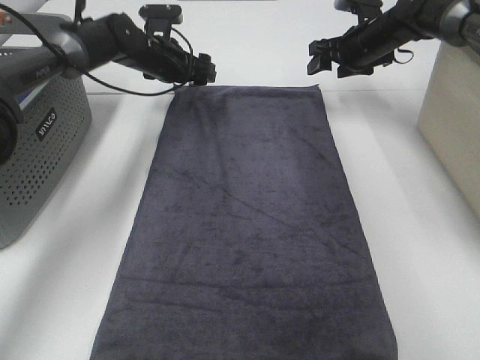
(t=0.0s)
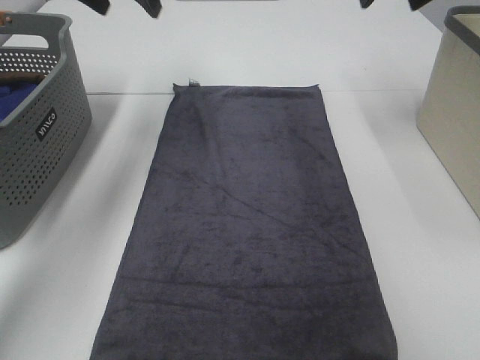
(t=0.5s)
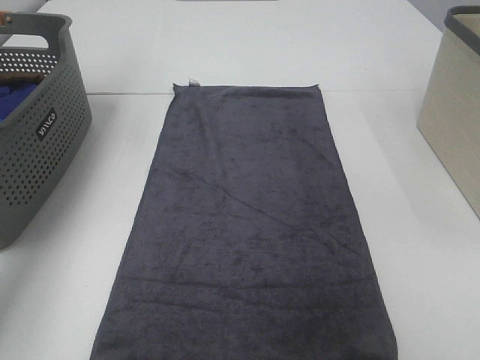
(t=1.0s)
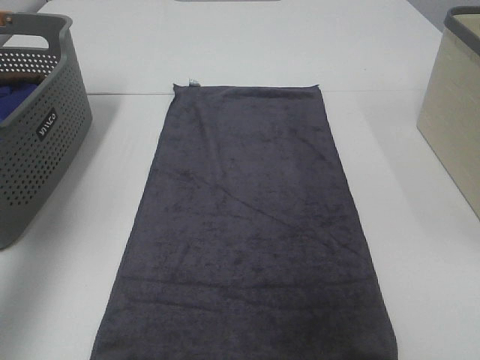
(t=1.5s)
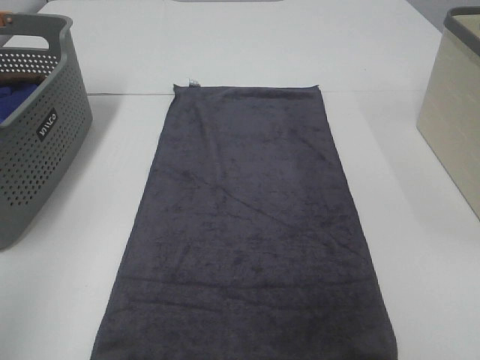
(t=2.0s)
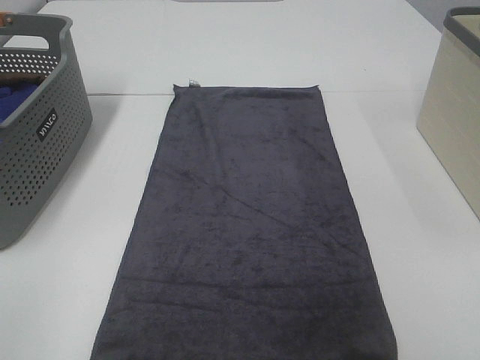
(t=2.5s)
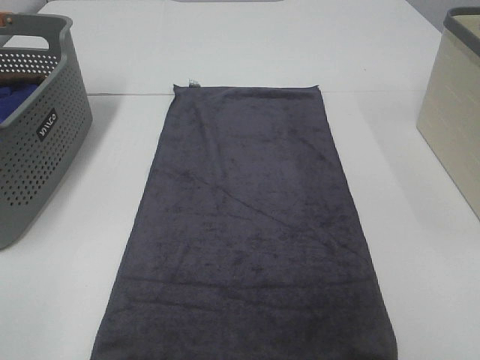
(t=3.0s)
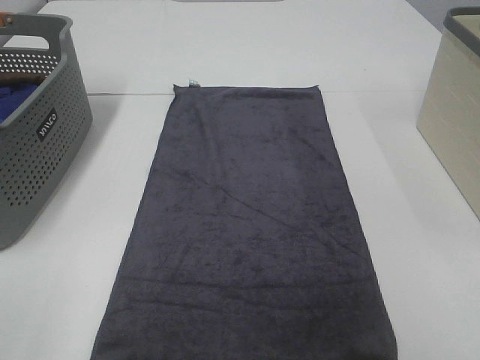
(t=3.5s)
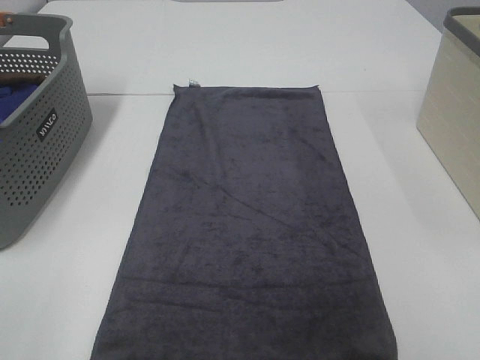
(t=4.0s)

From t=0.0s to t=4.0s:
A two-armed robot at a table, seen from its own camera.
Task of the whole recording: Remove the towel and place it.
From t=0.0s to t=2.0s: The right gripper is displaced backward by roughly 60 cm, while the left gripper moves backward and upward, some 60 cm.
From t=2.0s to t=4.0s: The left gripper shifts some 10 cm downward and backward.

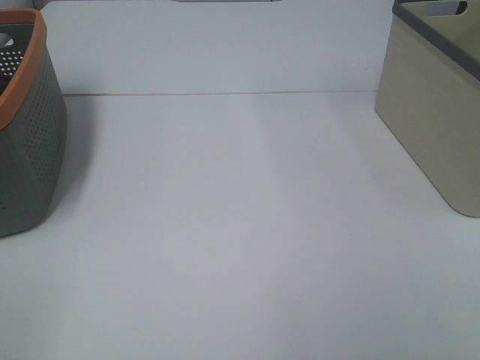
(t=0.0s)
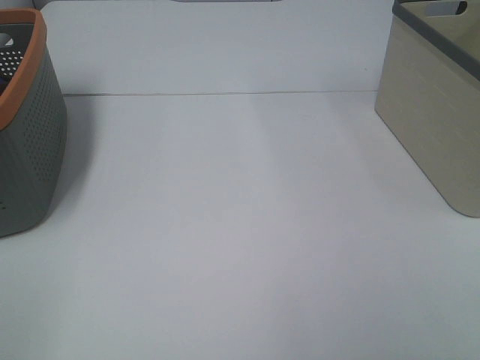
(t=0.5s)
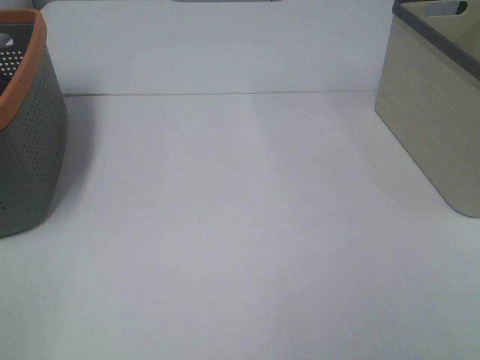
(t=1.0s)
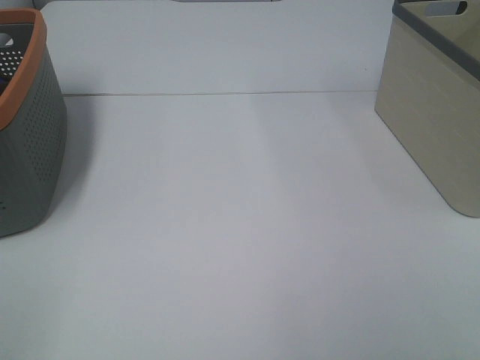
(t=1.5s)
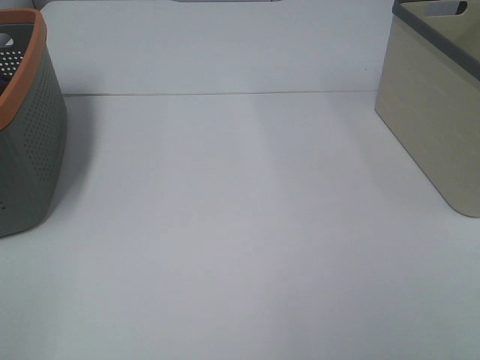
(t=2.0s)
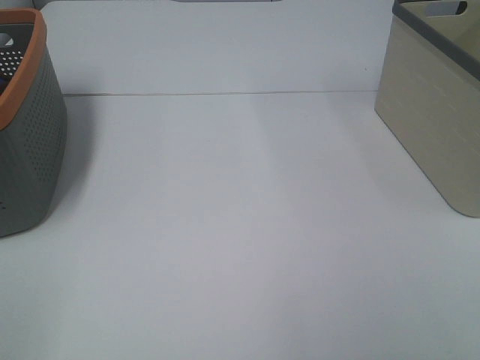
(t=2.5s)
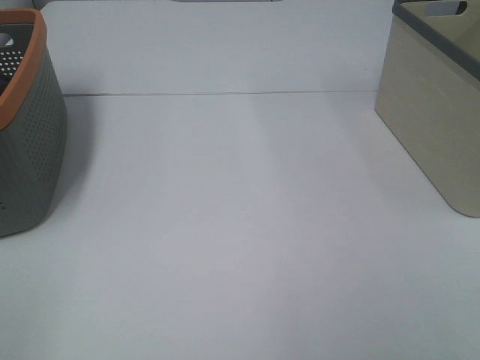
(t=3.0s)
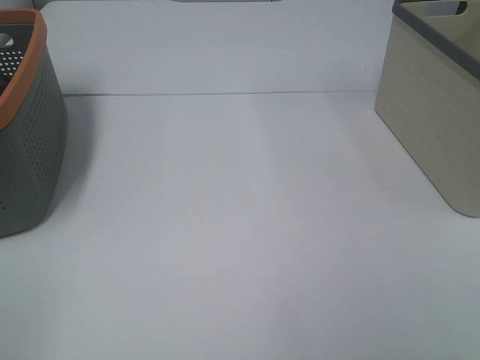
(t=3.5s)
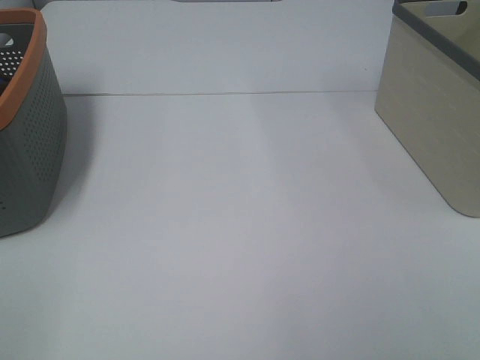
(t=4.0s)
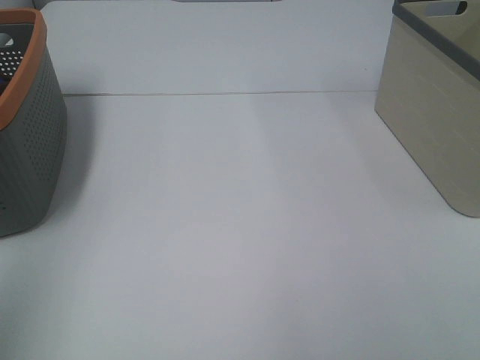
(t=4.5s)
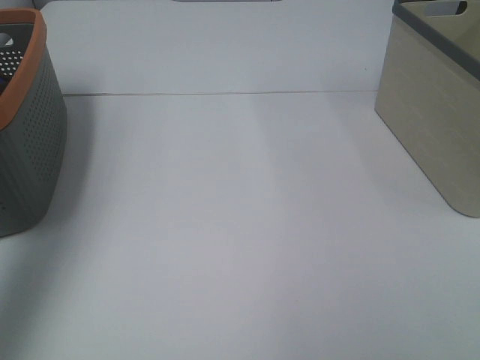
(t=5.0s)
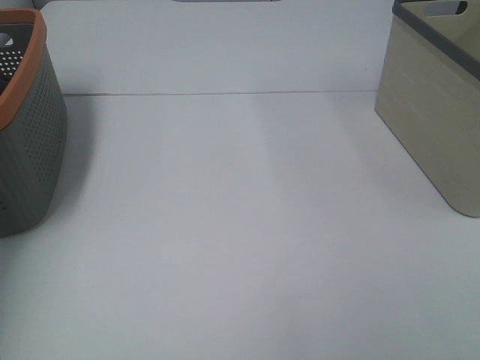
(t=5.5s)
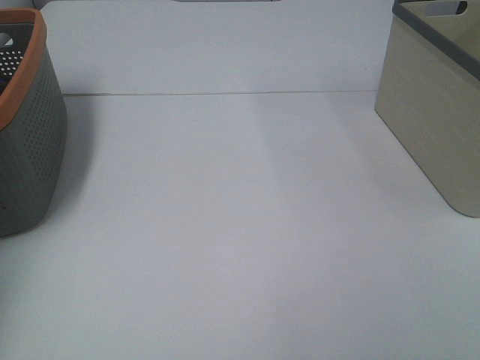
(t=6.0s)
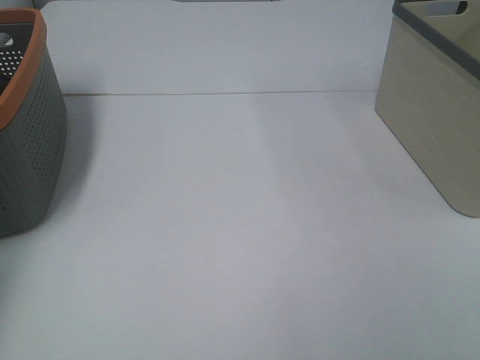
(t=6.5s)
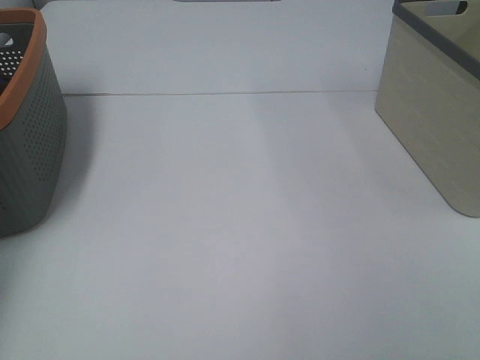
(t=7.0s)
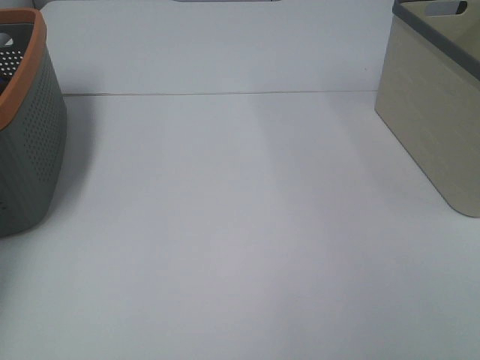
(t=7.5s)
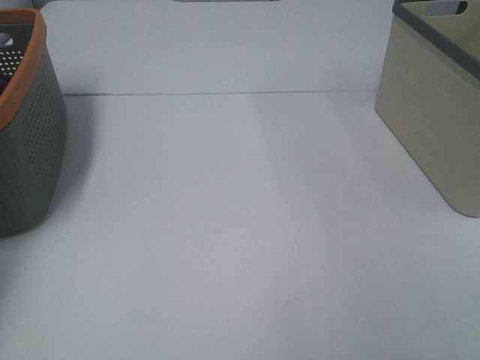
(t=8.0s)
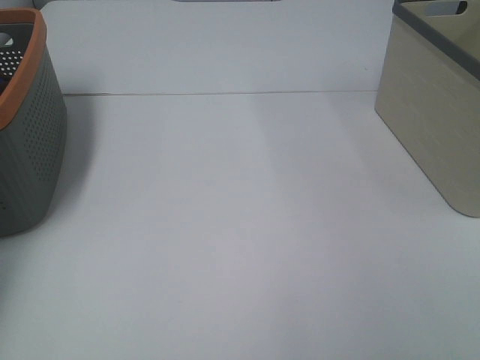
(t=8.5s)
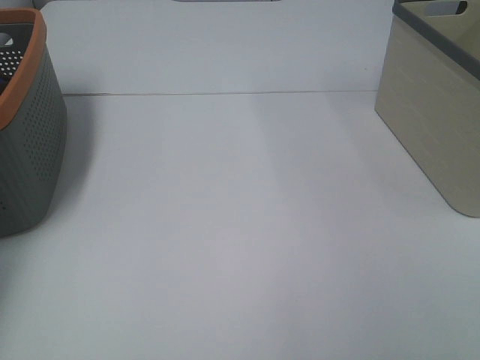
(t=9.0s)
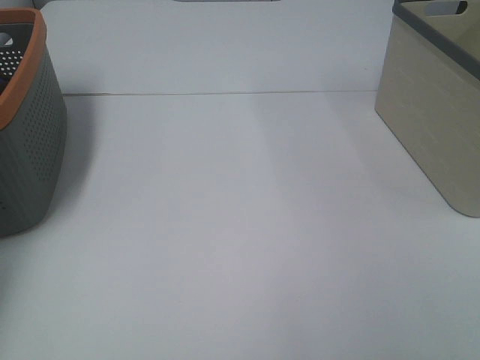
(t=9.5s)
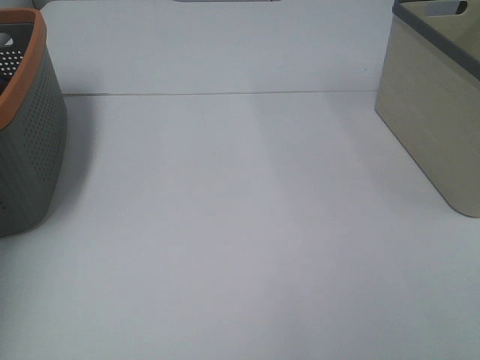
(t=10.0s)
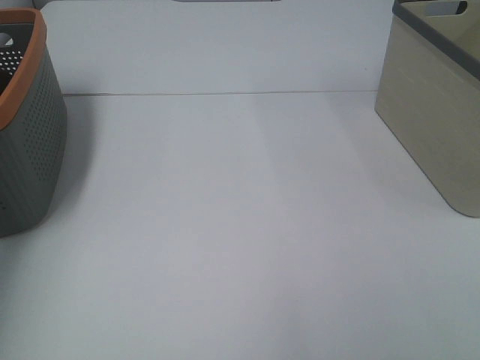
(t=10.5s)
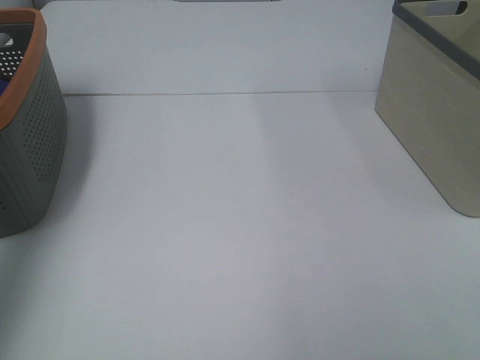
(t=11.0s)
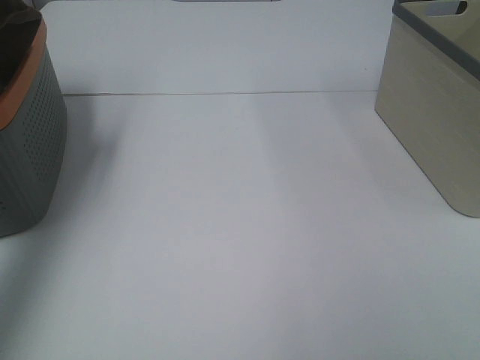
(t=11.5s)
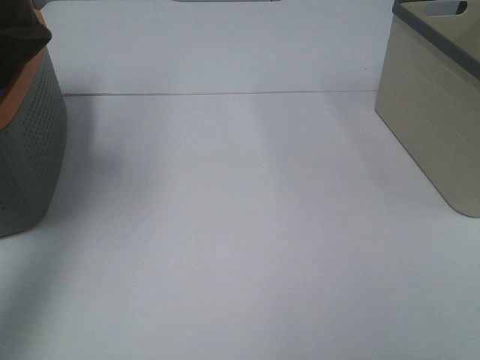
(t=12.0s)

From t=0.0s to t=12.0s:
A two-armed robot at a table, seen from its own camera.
Task of the whole recording: Remove the towel and place it.
From t=0.0s to t=4.0s: Both grippers stay put.
From t=4.0s to t=6.0s: The left gripper goes about 40 cm forward.
From t=10.0s to t=12.0s: The left gripper moves upward, to the right and backward, roughly 25 cm.

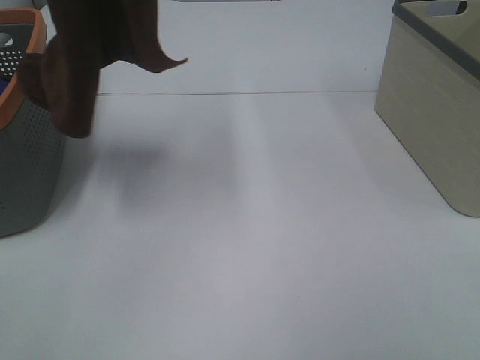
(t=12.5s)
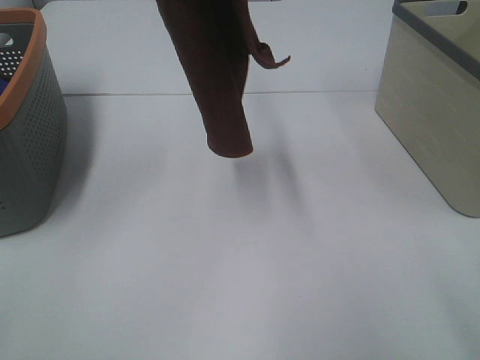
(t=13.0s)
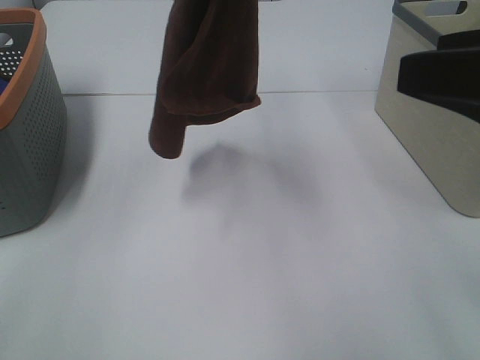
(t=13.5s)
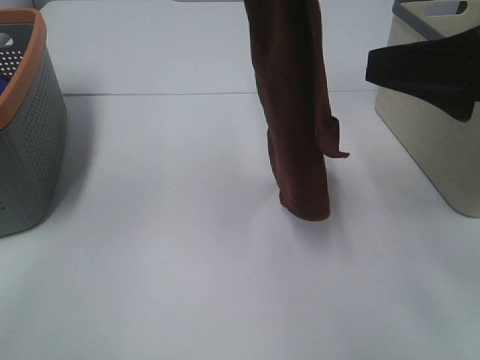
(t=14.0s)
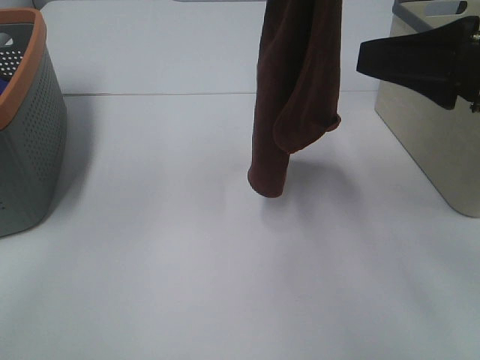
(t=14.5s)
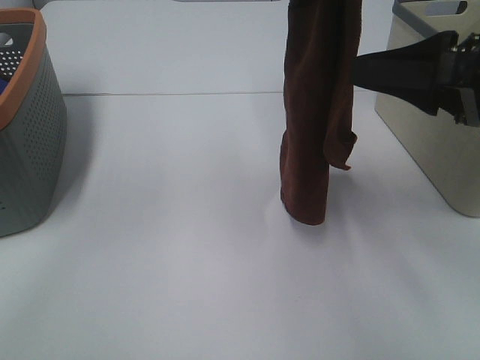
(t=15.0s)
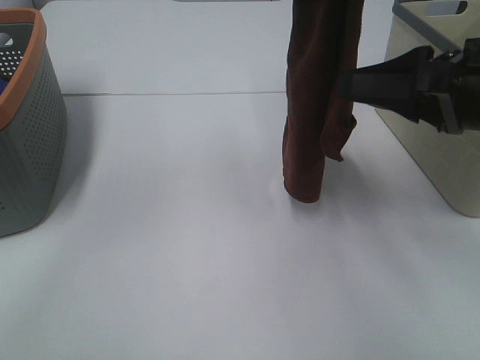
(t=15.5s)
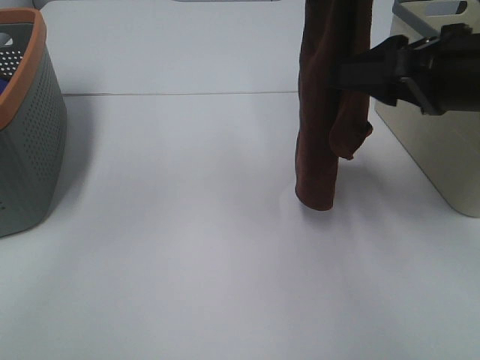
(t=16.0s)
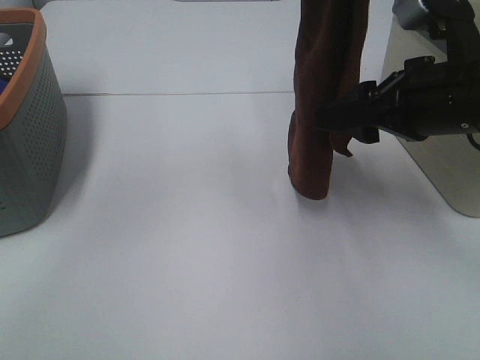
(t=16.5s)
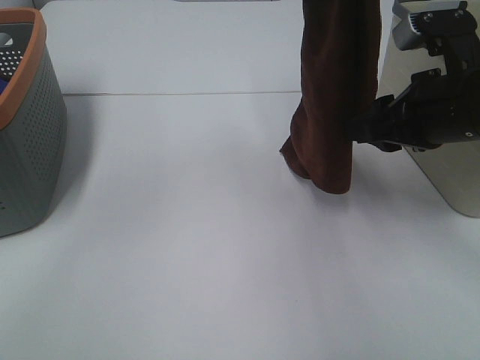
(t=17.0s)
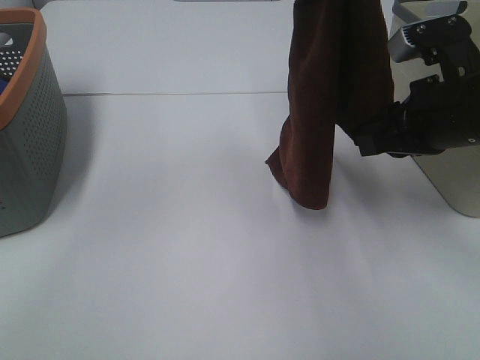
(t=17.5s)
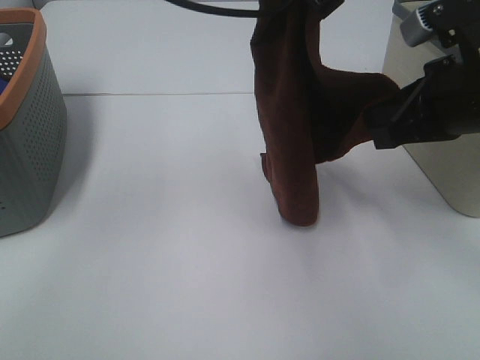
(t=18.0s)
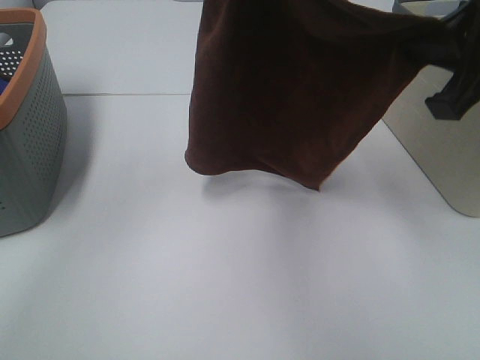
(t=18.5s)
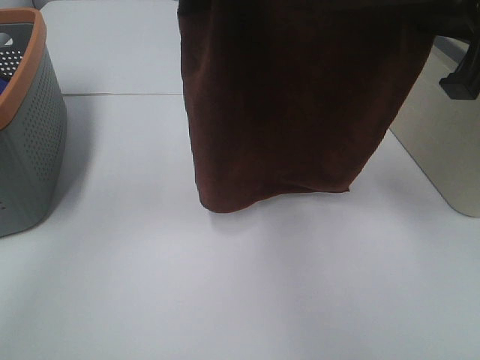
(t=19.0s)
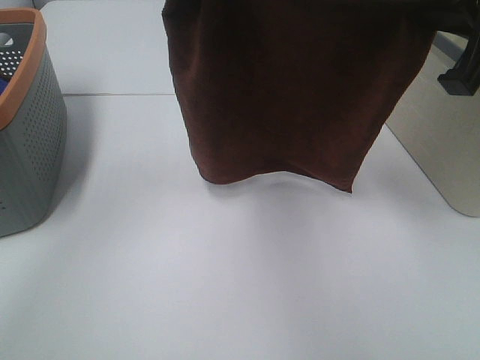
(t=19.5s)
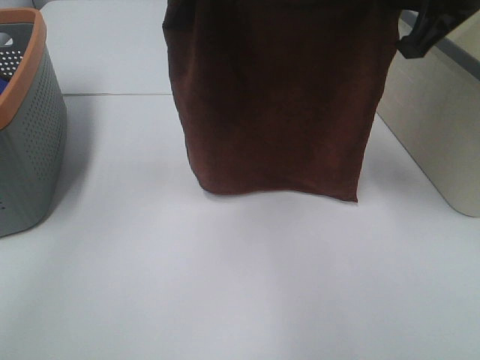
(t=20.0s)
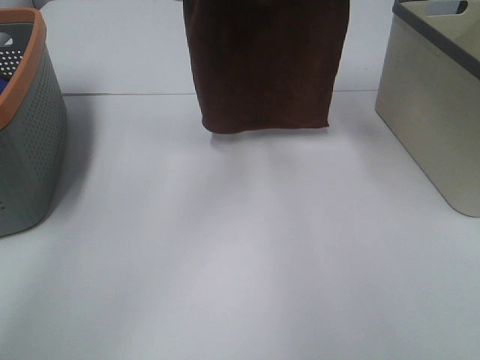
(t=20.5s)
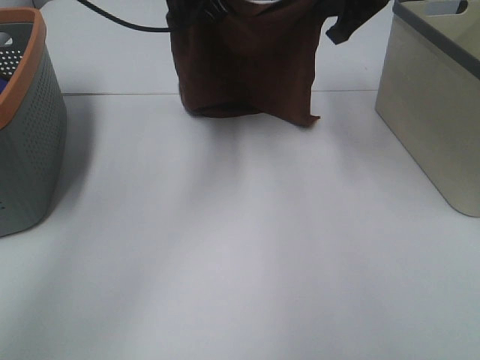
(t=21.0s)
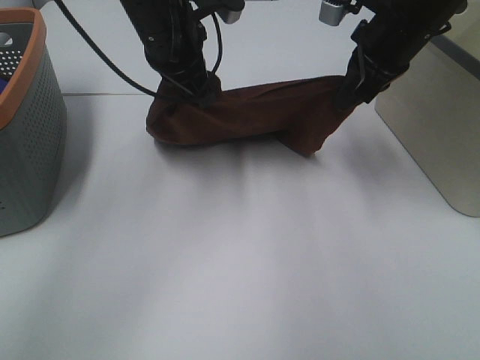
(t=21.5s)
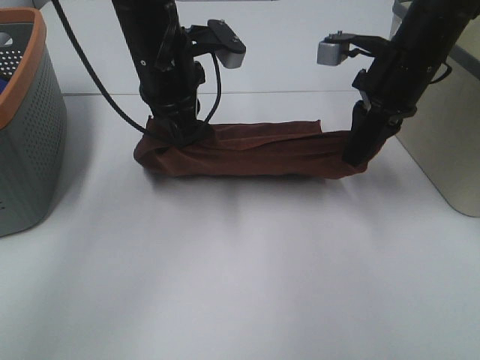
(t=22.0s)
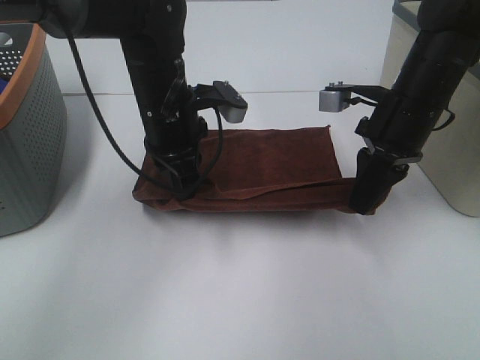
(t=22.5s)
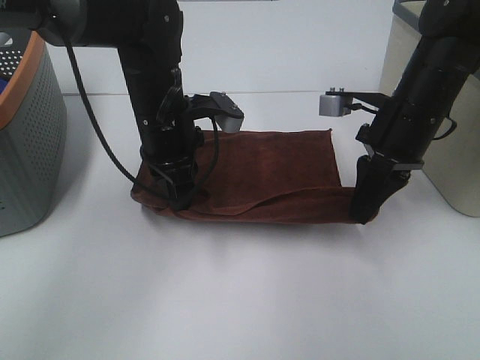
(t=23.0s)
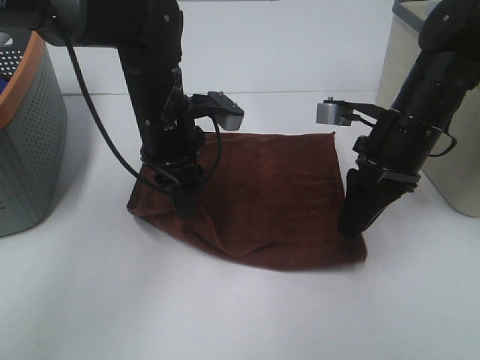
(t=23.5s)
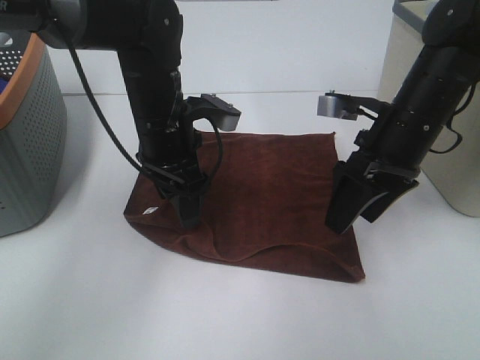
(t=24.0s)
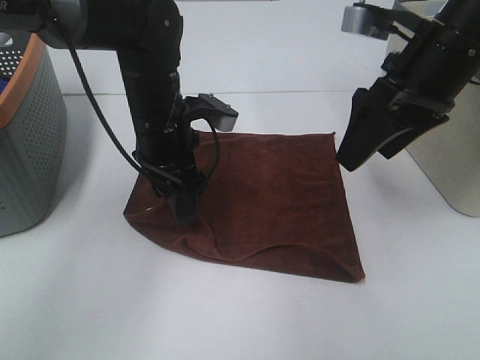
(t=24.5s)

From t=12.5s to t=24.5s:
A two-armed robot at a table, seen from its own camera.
Task of the whole recording: Remove the towel and place it.
Step, from t=12.5s to t=15.0s: Right hand: grab a corner of the brown towel and straighten it.
Step, from t=15.5s to t=18.5s: Left hand: spread the brown towel flat on the table.
Step, from t=15.5s to t=18.5s: Right hand: spread the brown towel flat on the table.
From t=12.5s to t=14.5s: The right gripper is displaced forward by about 20 cm; the left gripper goes about 20 cm to the right and downward.
From t=14.5s to t=16.5s: The right gripper heads forward and downward, covering approximately 10 cm.
From t=16.5s to t=18.5s: The right gripper moves upward, about 10 cm, and closes. Meanwhile the left gripper ends up roughly 5 cm from where it was.
From t=18.5s to t=20.5s: The right gripper heads forward, covering some 15 cm, while the left gripper heads forward and to the left, covering about 15 cm.
From t=20.5s to t=22.5s: Both grippers move downward, about 20 cm.
From t=22.5s to t=24.5s: The left gripper opens its fingers, while the right gripper travels upward by approximately 10 cm, and opens up.
